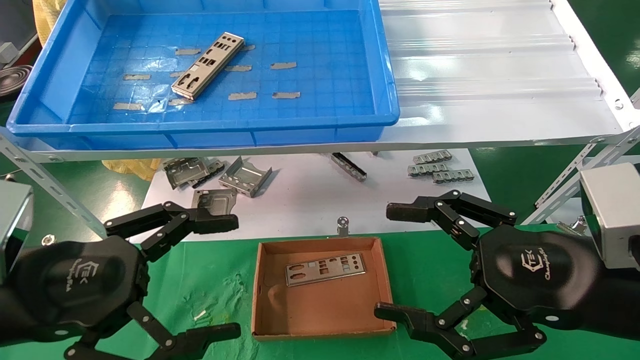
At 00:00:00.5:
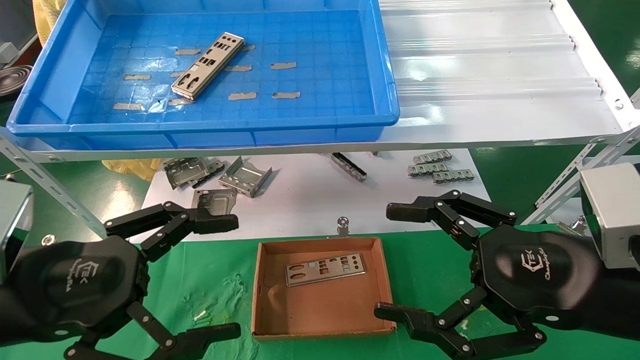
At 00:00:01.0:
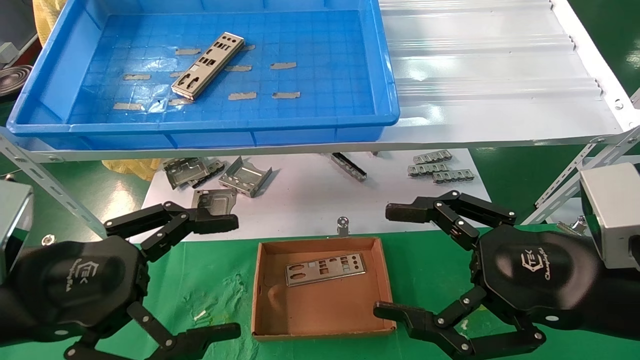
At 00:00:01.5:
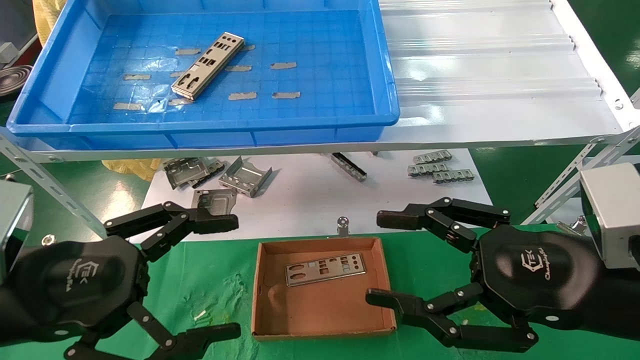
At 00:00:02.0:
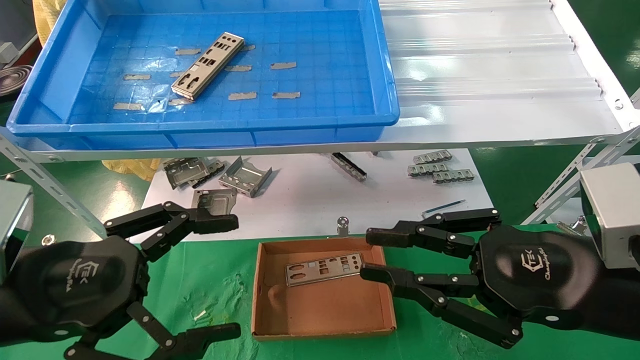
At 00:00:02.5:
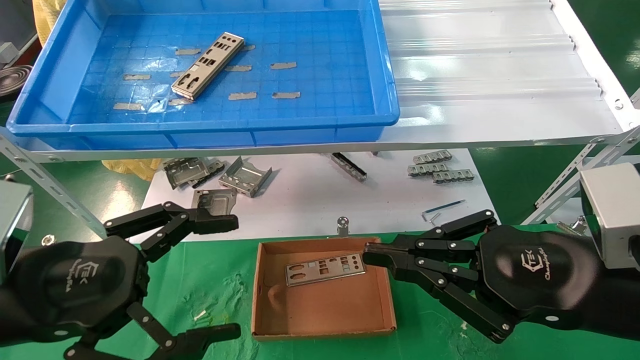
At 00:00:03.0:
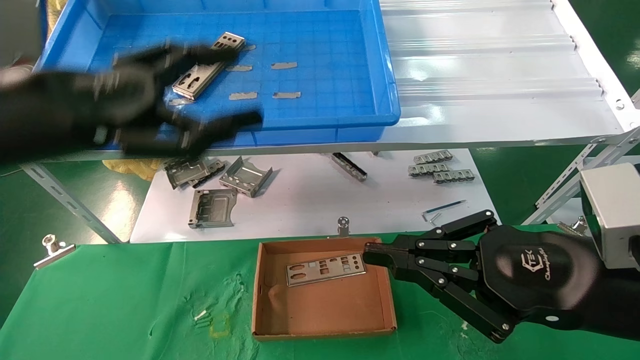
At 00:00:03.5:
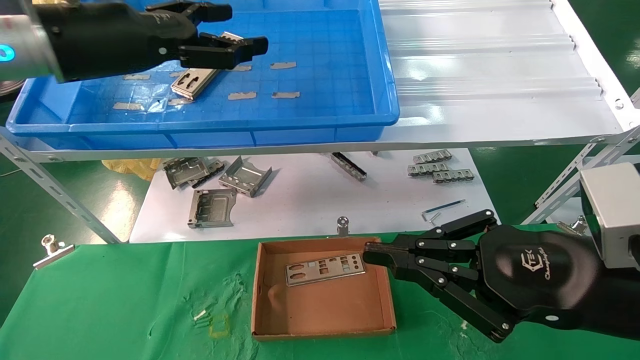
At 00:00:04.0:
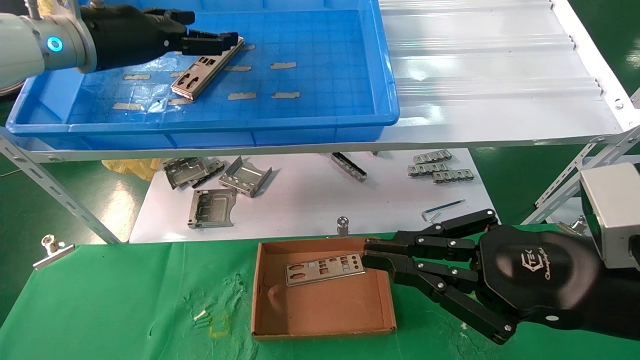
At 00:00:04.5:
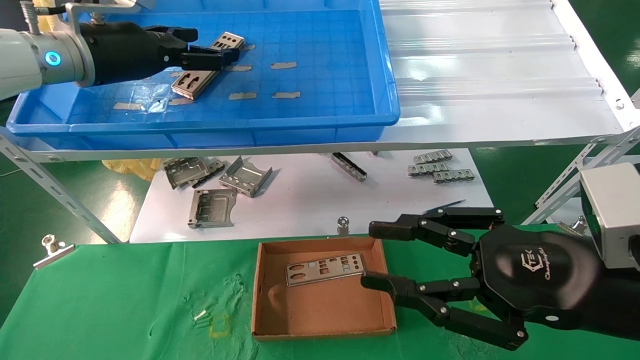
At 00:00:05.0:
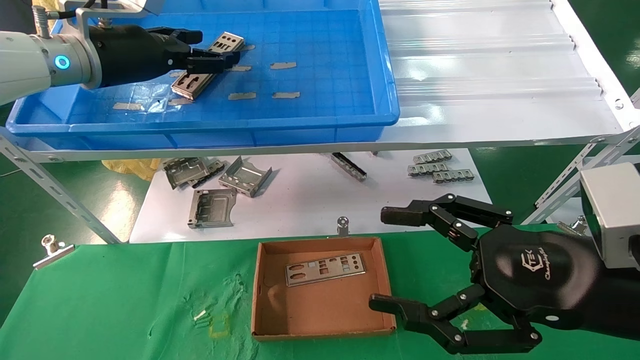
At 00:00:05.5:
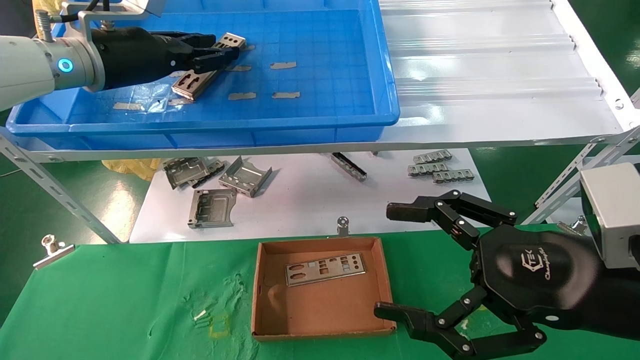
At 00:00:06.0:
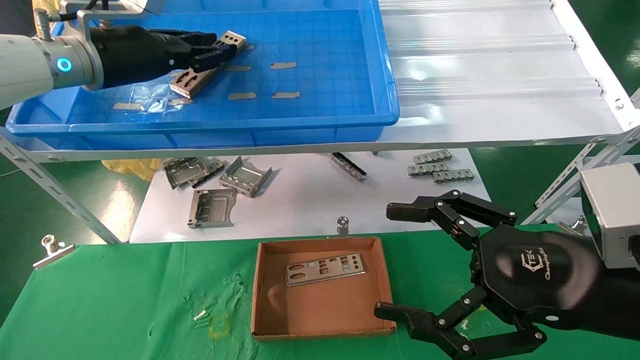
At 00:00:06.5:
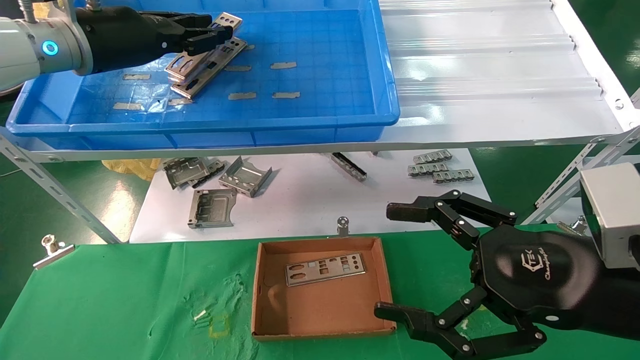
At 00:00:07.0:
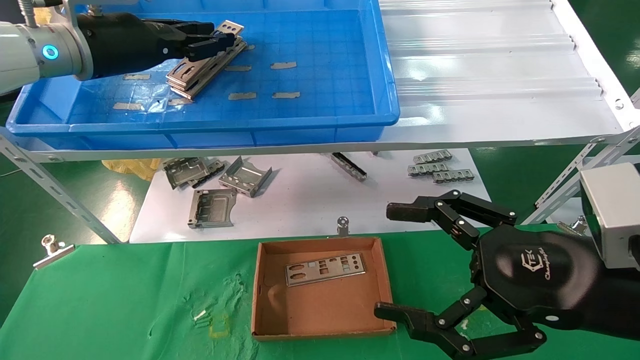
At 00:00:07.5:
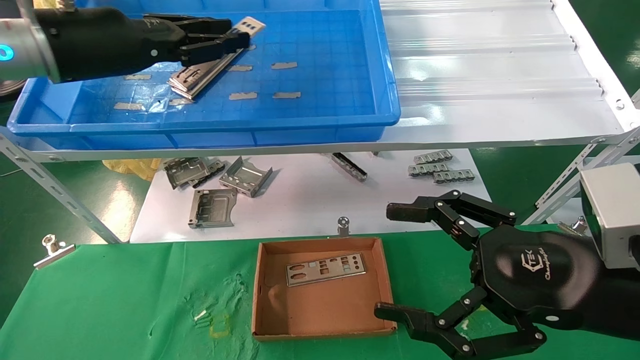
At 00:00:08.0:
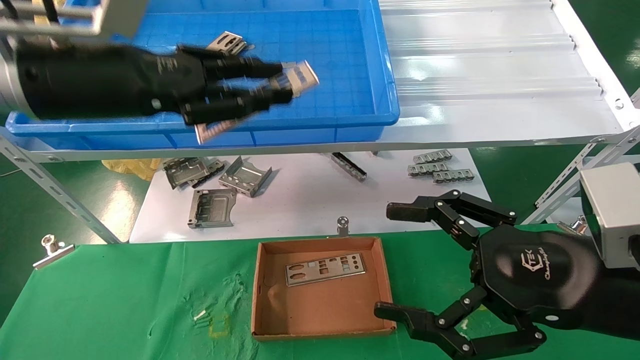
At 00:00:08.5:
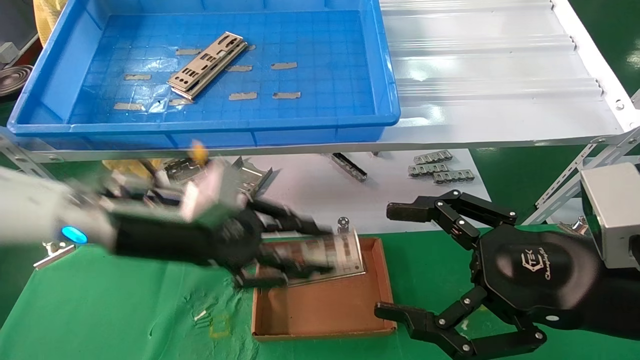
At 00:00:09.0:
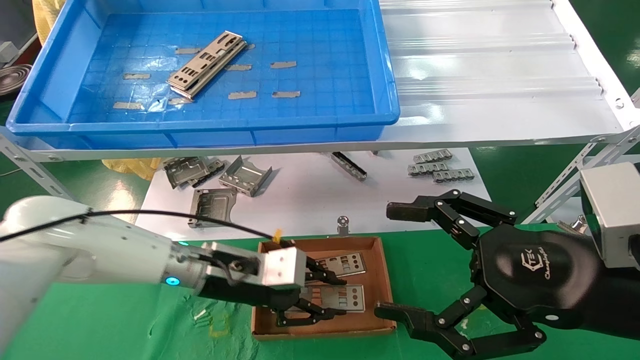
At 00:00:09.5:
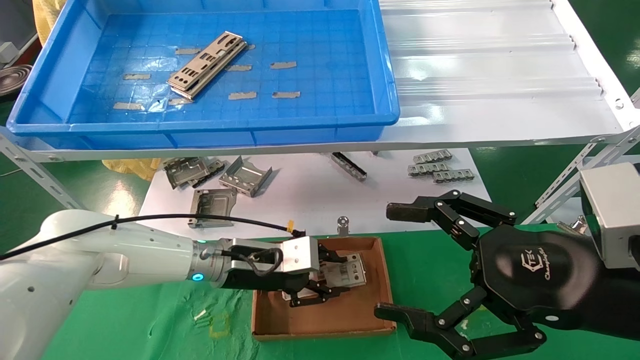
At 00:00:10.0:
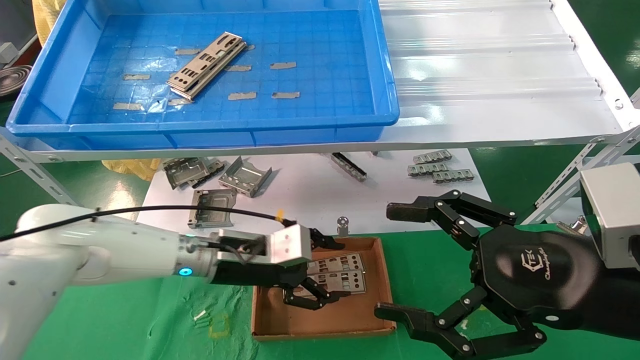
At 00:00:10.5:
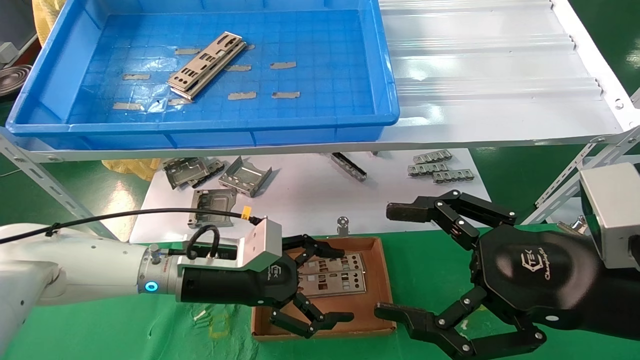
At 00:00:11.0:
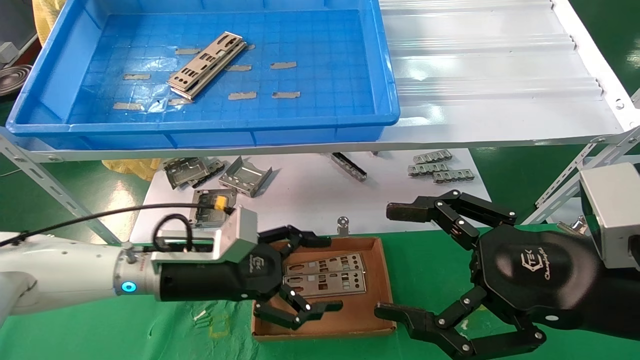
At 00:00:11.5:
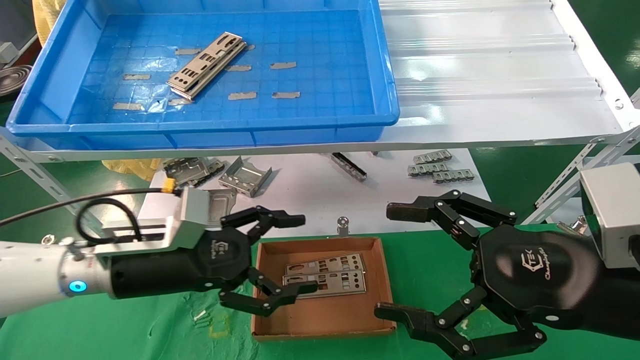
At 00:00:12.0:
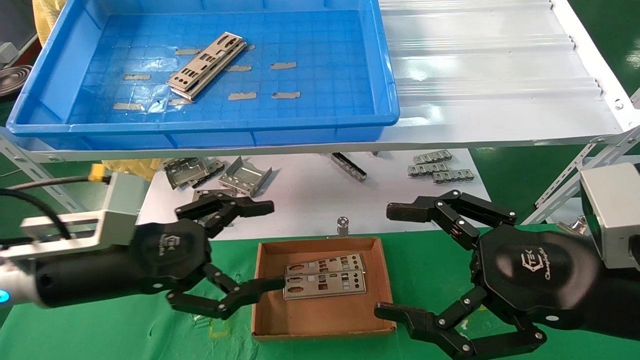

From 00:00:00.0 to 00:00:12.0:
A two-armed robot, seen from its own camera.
Task of the whole recording: pick up the parts on the tray and put them in the cardboard box.
Step, from 00:00:03.0 to 00:00:05.5: Pick up the IO bracket from the container box.
Step, from 00:00:06.0 to 00:00:09.5: Place the IO bracket into the ingredient slot.
From 00:00:00.0 to 00:00:02.0: The right gripper closes.
From 00:00:02.0 to 00:00:04.0: The left gripper travels forward and upward by about 30 cm.
From 00:00:04.0 to 00:00:06.0: The right gripper opens up, while the left gripper closes its fingers.
From 00:00:06.0 to 00:00:08.0: The left gripper goes about 10 cm backward.
From 00:00:08.0 to 00:00:10.0: The left gripper moves downward and to the right, approximately 25 cm, and opens its fingers.
From 00:00:10.0 to 00:00:12.0: The left gripper heads backward, to the left and upward, covering some 20 cm, and opens up.

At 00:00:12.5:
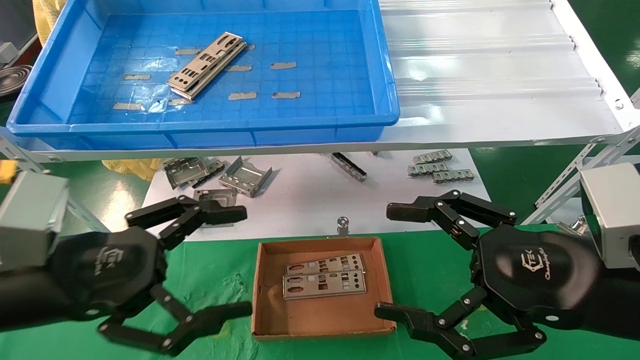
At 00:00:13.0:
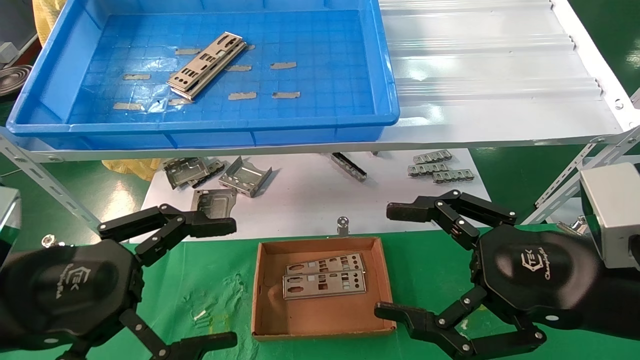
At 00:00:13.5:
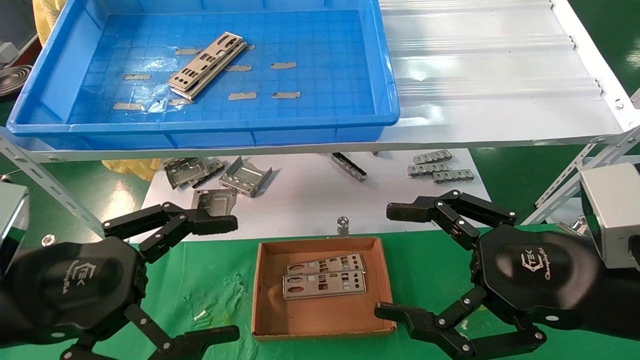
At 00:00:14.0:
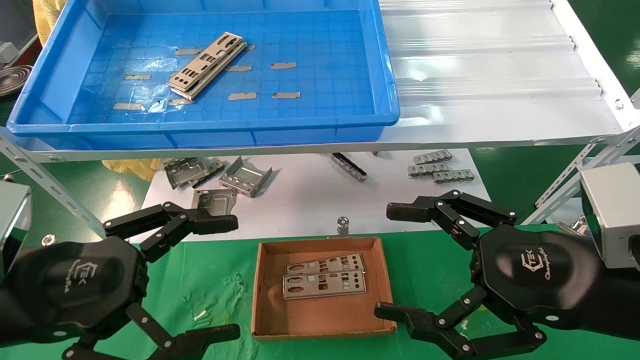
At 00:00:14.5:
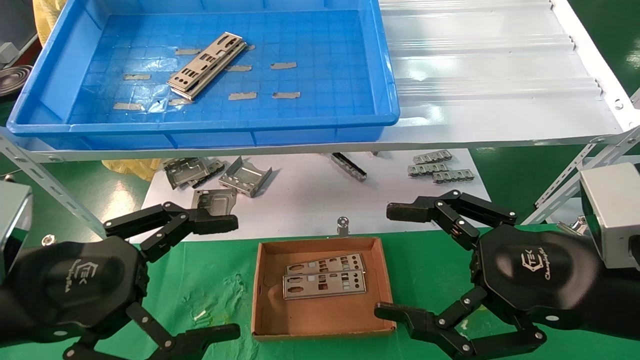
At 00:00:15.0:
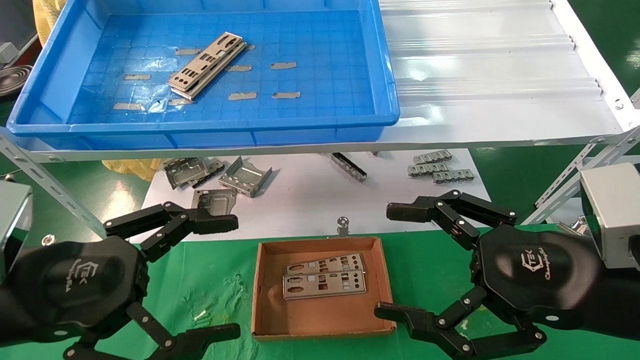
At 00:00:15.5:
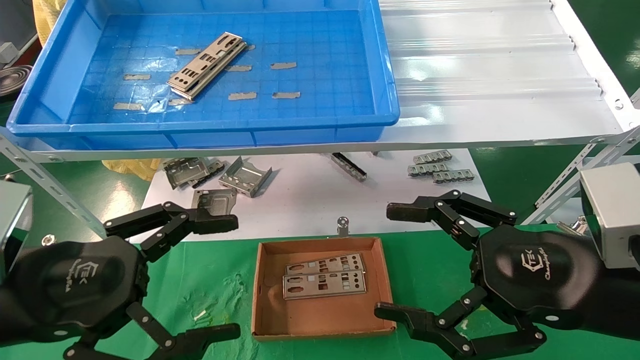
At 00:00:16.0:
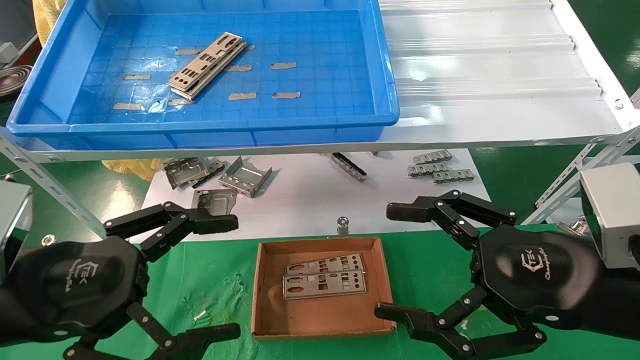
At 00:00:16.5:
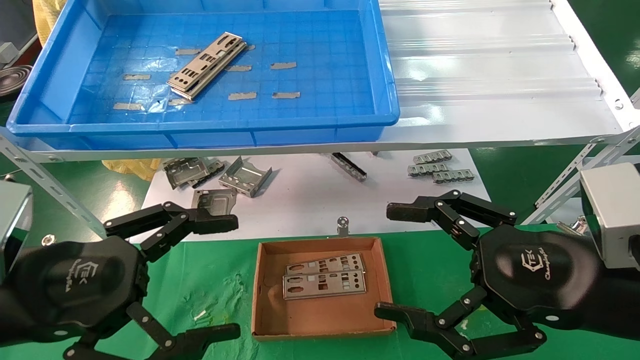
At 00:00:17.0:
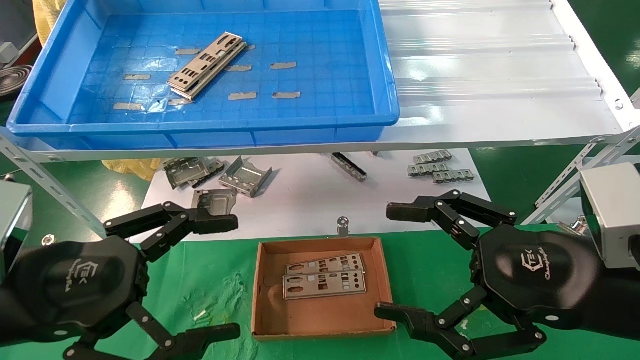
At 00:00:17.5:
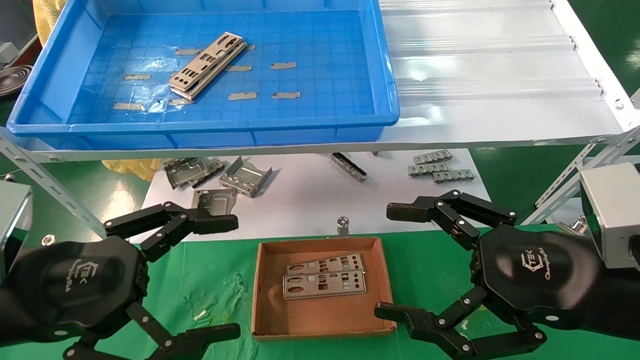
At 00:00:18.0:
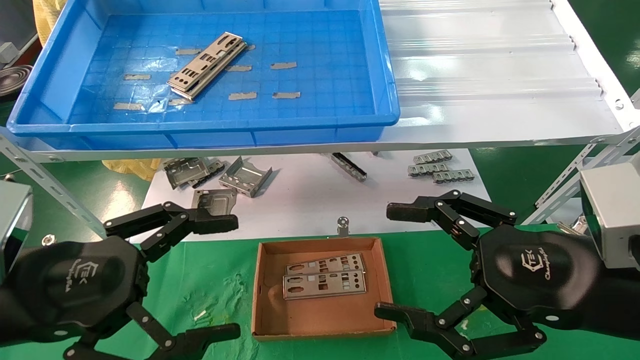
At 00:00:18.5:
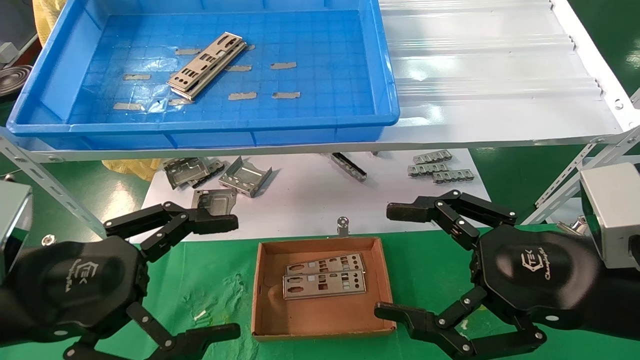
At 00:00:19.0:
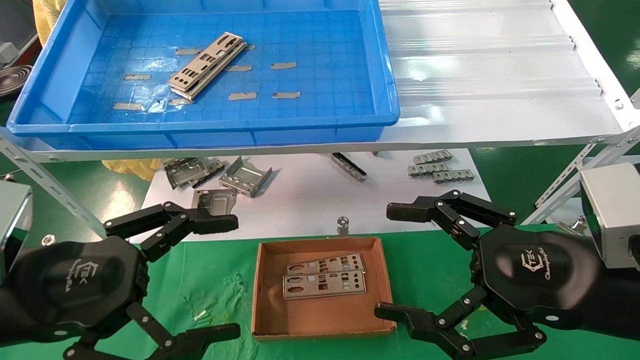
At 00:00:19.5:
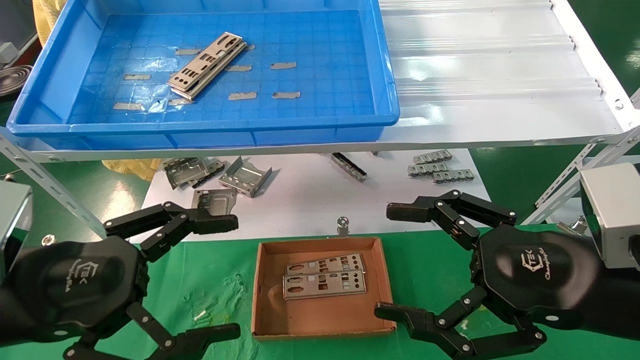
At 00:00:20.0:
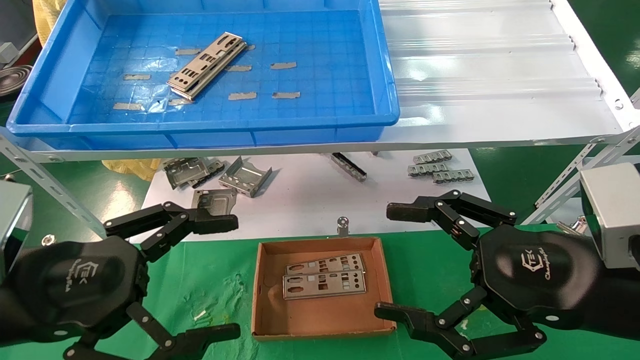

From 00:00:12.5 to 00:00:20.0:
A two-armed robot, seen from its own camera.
Task of the whole recording: pick up the parts on the tray and put them in the cardboard box.
From 00:00:12.5 to 00:00:14.5: The grippers move only a little.
From 00:00:14.5 to 00:00:20.0: Neither gripper changes place.
